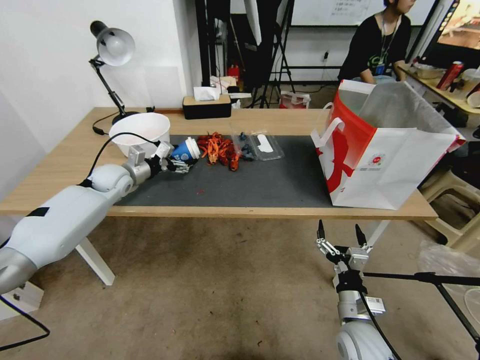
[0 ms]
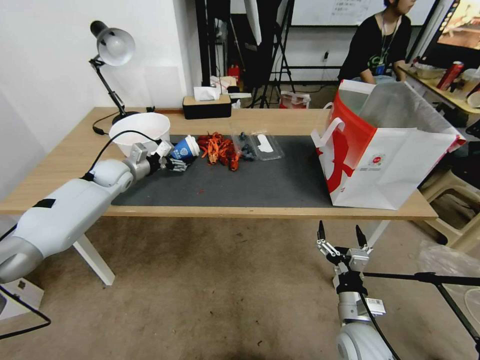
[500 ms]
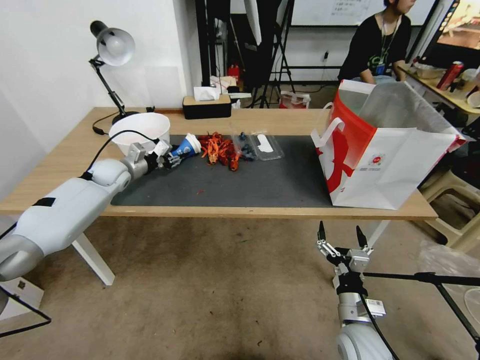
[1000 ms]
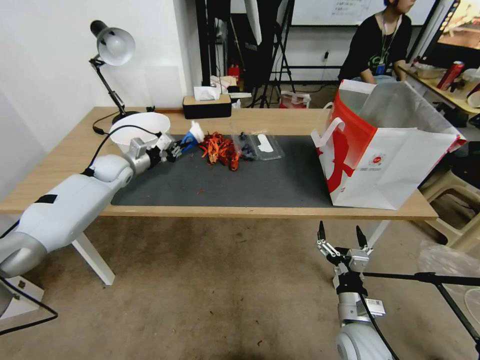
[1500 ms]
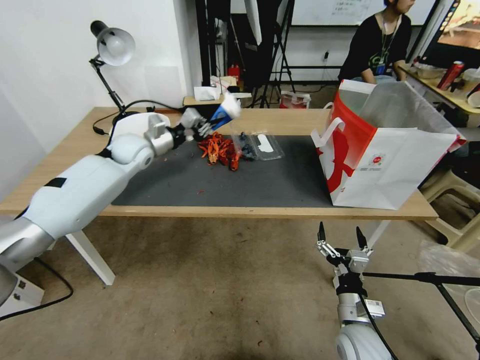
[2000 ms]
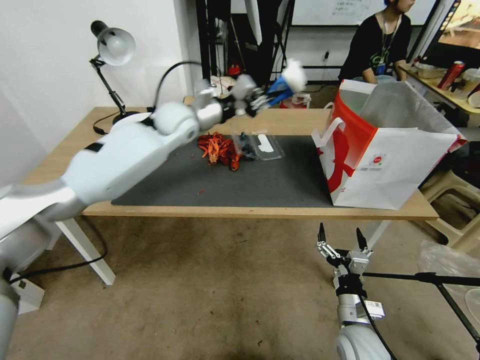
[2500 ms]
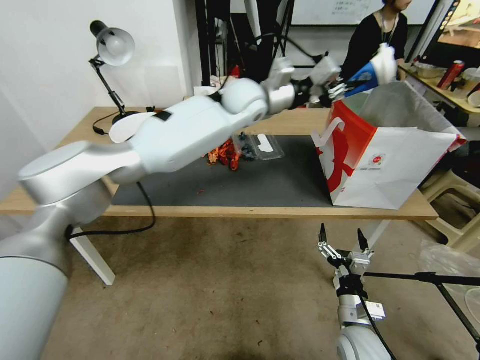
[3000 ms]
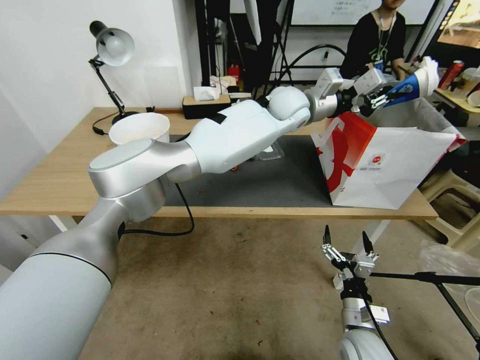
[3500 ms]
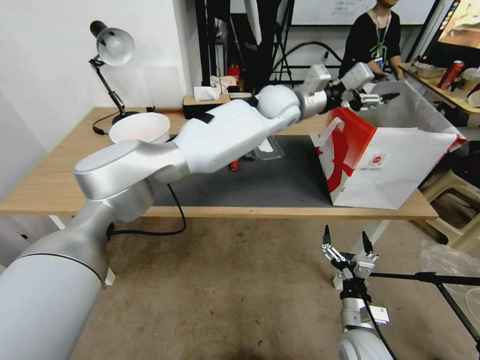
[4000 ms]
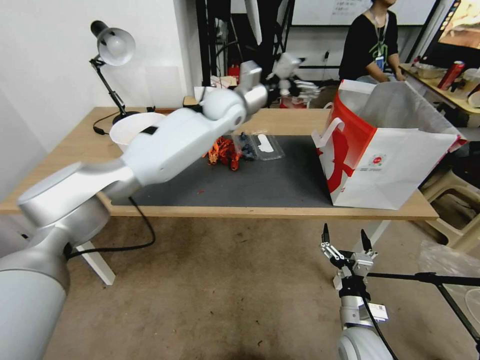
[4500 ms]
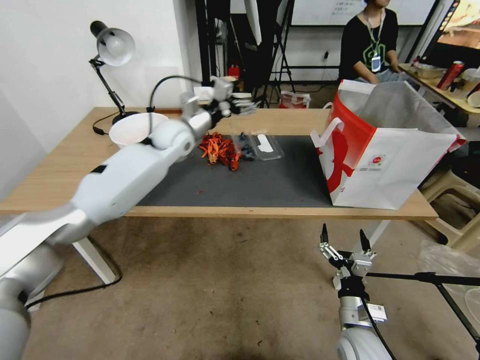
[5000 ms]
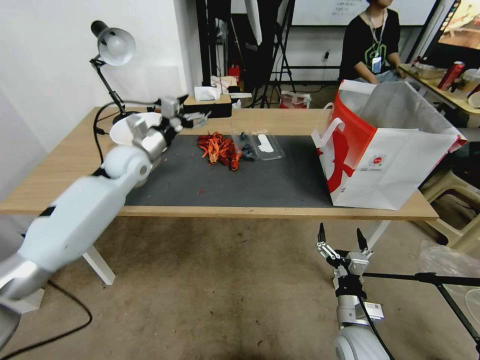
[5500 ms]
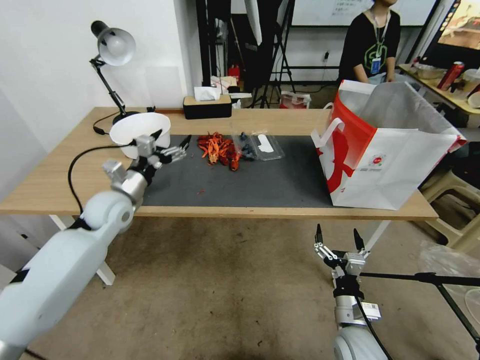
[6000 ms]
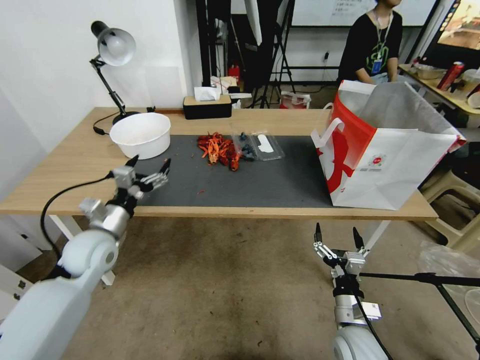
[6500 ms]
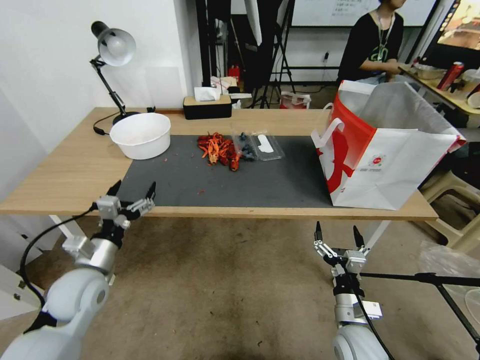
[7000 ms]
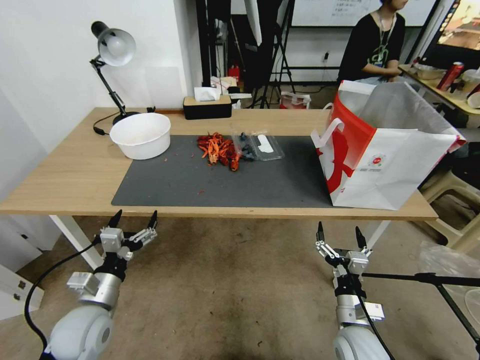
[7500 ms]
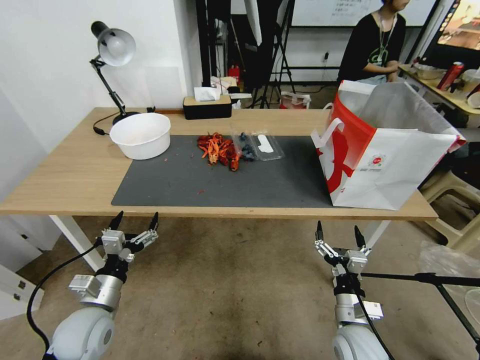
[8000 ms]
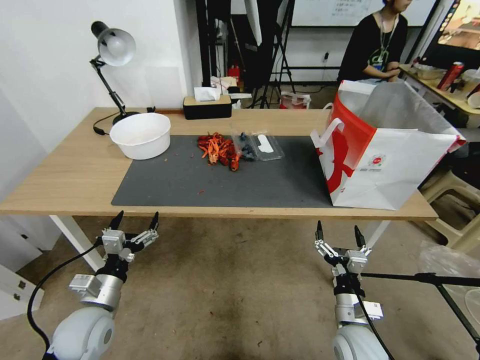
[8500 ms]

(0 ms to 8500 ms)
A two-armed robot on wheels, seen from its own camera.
0 ms - 2000 ms: The left gripper moves upward and to the right, about 10 cm, and closes.
2000 ms - 4000 ms: The left gripper is displaced to the right by approximately 35 cm, and opens.
4000 ms - 6500 ms: The left gripper moves to the left, backward and downward, approximately 50 cm, and opens its fingers.
6500 ms - 8500 ms: The left gripper goes approximately 15 cm backward and downward.
